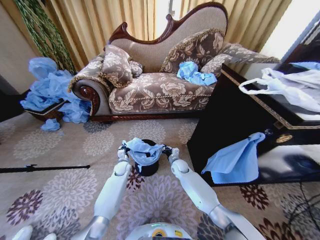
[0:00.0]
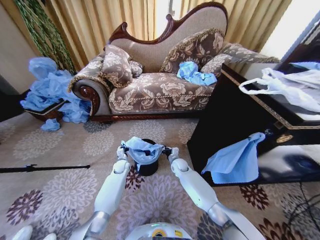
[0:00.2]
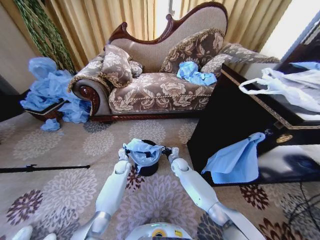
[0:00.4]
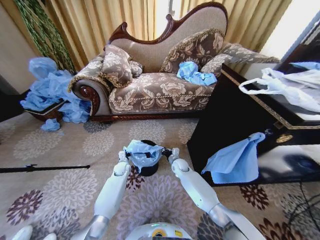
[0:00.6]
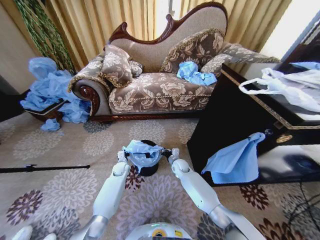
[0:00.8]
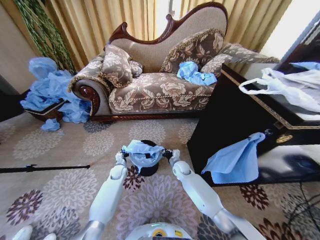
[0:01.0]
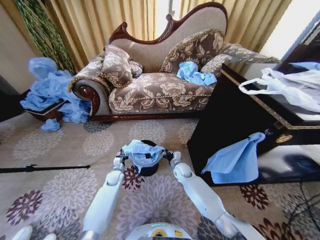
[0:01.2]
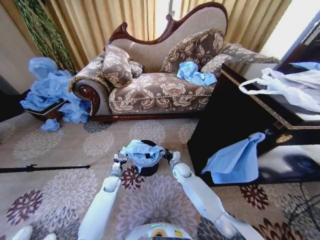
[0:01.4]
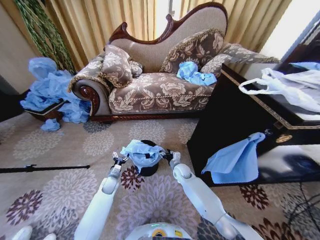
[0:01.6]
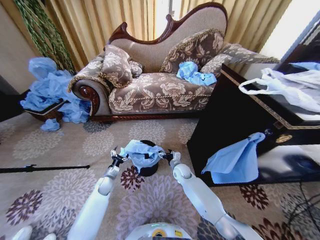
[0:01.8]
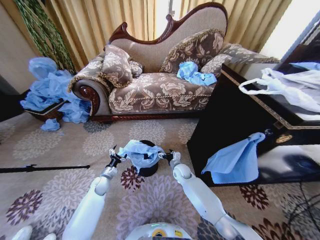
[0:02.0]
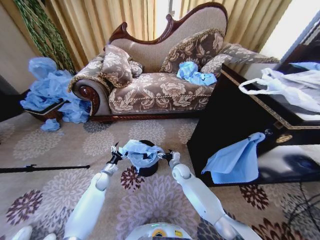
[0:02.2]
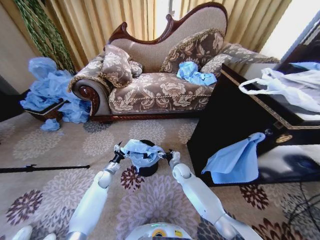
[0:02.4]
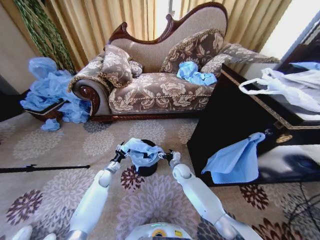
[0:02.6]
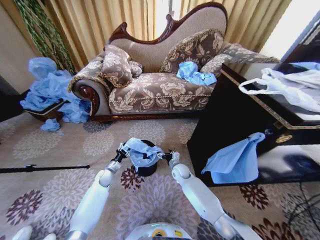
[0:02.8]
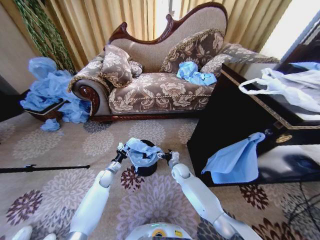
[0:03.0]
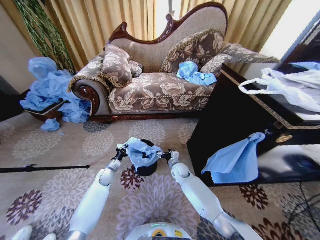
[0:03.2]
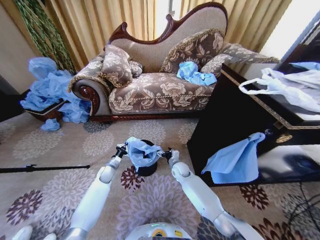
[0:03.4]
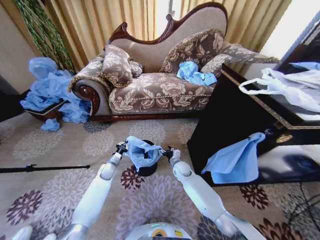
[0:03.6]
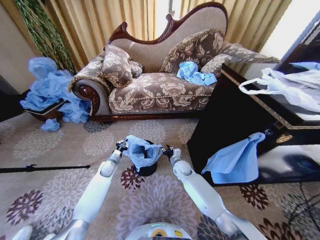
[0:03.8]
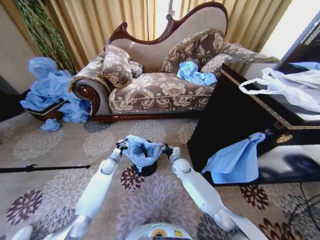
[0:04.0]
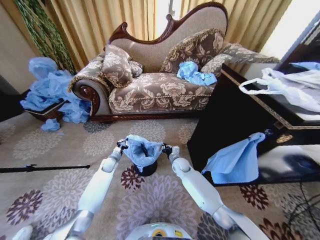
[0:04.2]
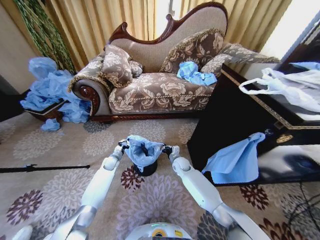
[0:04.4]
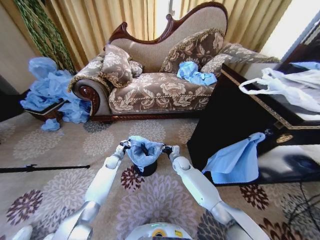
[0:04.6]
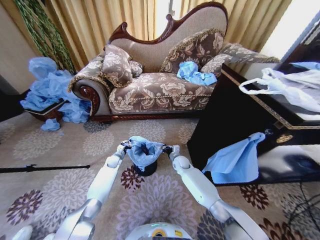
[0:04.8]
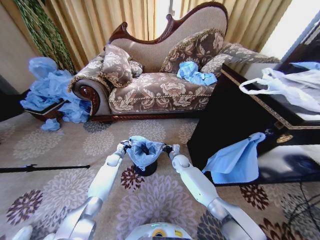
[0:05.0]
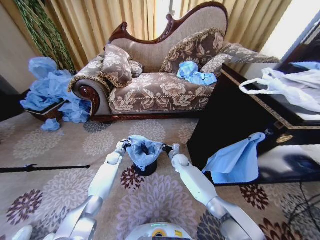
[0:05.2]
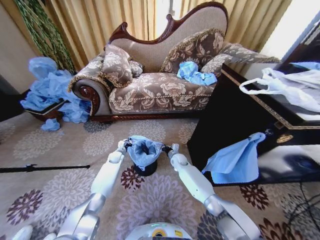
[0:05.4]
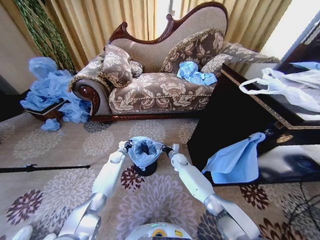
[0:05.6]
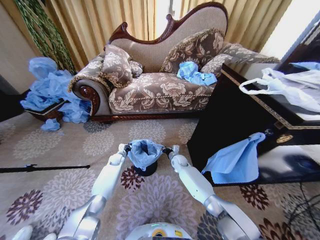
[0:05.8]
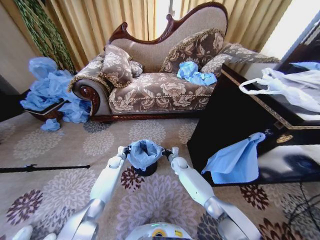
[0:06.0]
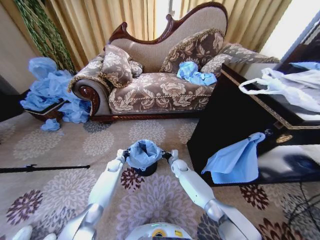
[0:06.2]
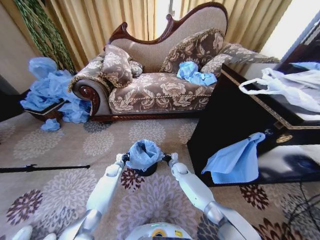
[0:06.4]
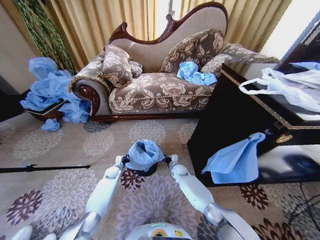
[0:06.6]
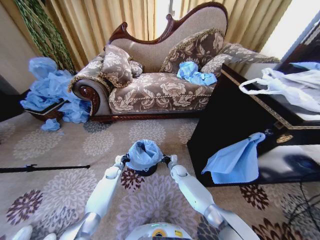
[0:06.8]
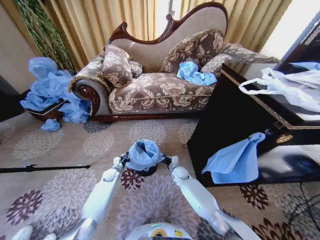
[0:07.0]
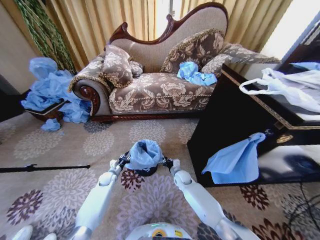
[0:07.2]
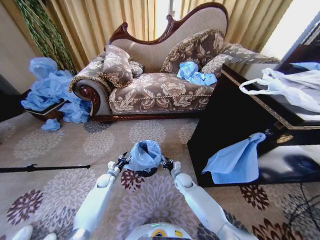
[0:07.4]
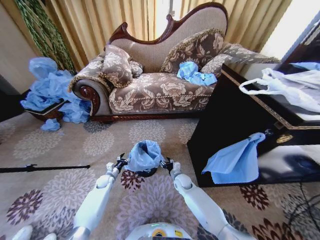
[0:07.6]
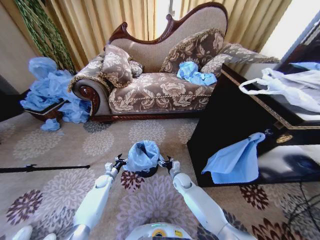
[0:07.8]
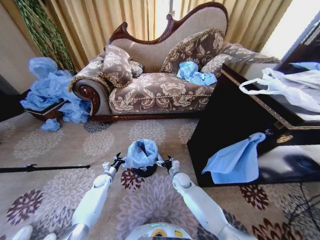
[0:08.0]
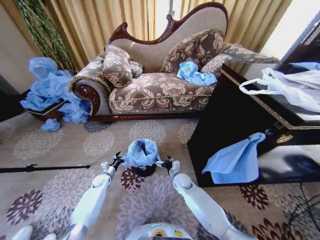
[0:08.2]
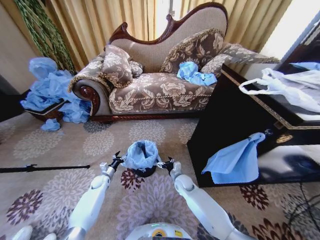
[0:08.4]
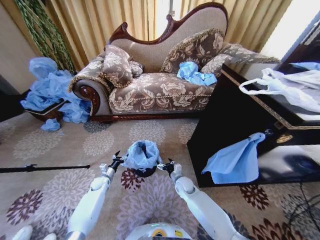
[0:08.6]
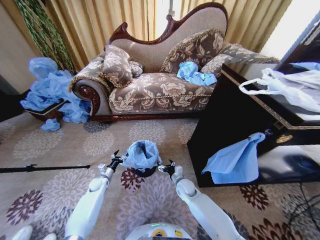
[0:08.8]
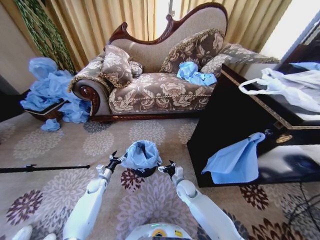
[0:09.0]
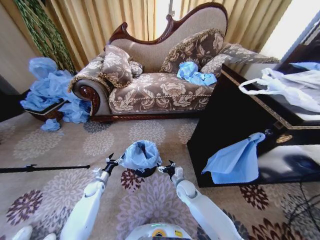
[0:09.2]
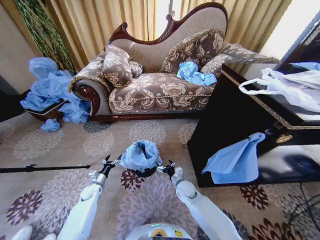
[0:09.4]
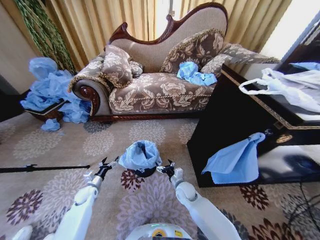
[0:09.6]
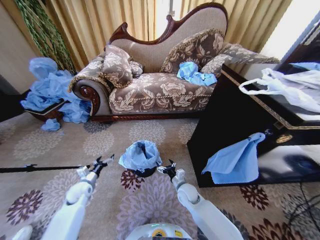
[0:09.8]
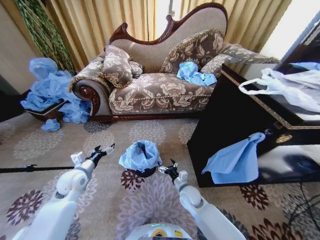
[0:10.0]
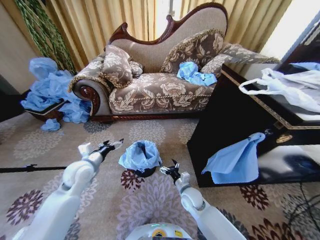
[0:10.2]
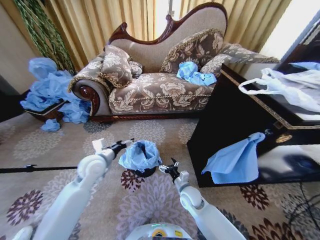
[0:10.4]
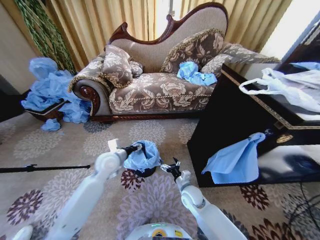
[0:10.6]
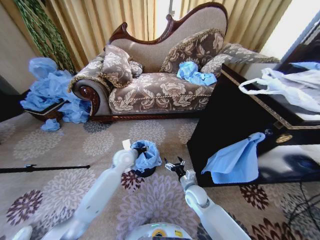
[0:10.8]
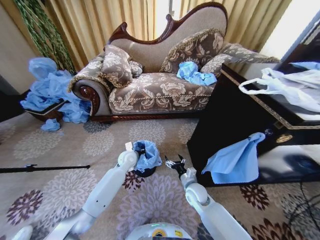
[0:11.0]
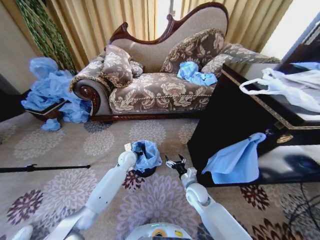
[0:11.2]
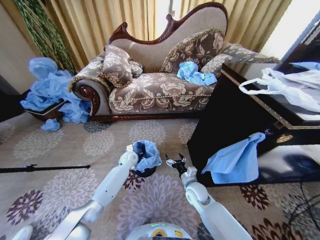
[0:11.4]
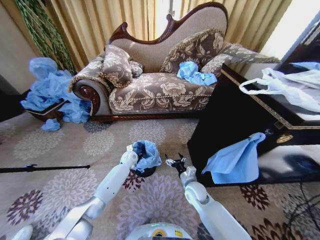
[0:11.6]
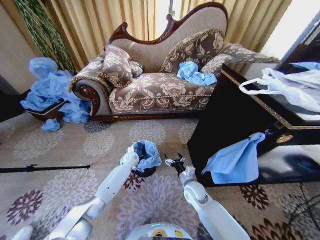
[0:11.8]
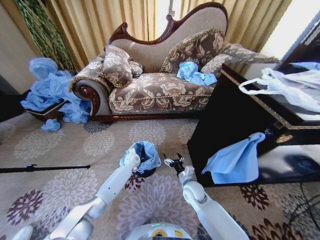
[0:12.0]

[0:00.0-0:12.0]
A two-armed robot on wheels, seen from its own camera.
Task of the whole recording: Place a garbage bag over the trash bin.
0:00.0 to 0:01.6: The right gripper opens up; the left gripper goes approximately 10 cm backward and to the left, and opens its fingers.
0:01.6 to 0:03.0: The left gripper closes up.
0:03.0 to 0:04.4: The right gripper closes up. The left gripper heads forward, covering some 10 cm.
0:06.0 to 0:07.6: The right gripper moves backward, about 10 cm, and opens its fingers. The left gripper heads backward and downward, covering roughly 10 cm, and opens up.
0:07.6 to 0:09.0: The right gripper opens up.
0:09.0 to 0:10.4: The right gripper moves backward, some 5 cm. The left gripper moves upward, some 30 cm.
0:10.4 to 0:12.0: The left gripper heads downward, forward and to the right, covering approximately 25 cm, and closes up.

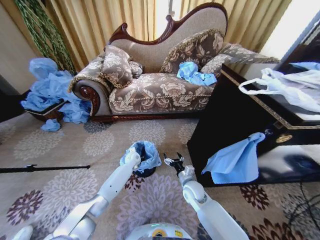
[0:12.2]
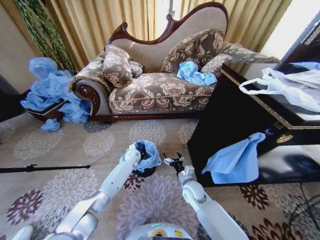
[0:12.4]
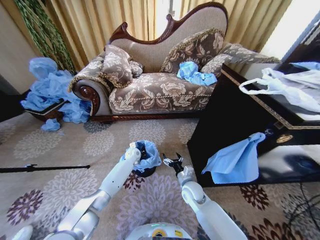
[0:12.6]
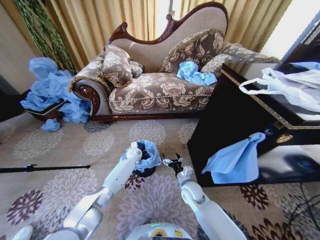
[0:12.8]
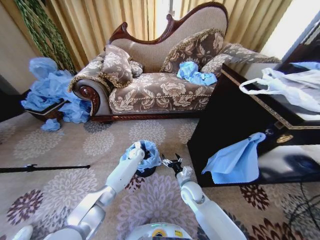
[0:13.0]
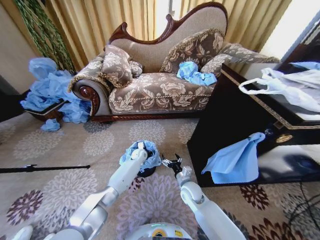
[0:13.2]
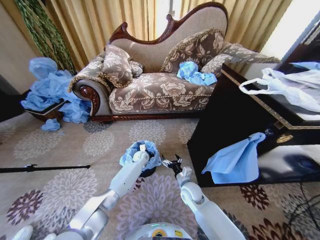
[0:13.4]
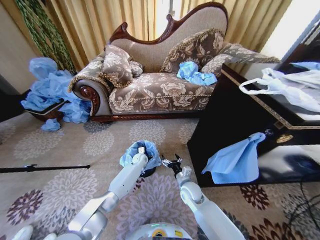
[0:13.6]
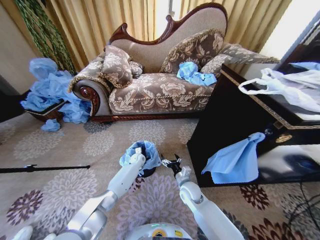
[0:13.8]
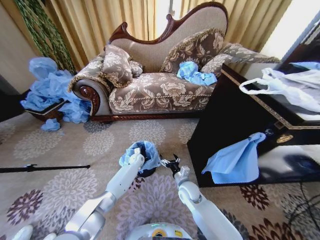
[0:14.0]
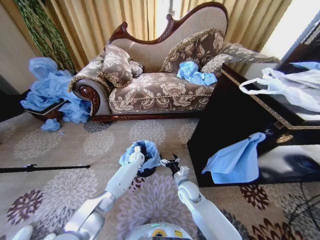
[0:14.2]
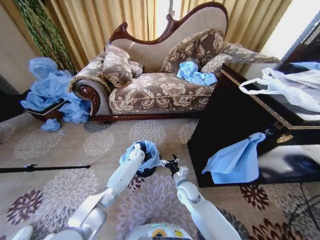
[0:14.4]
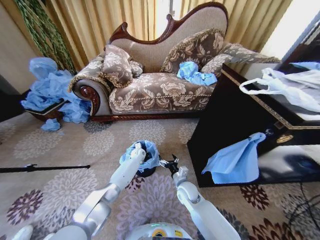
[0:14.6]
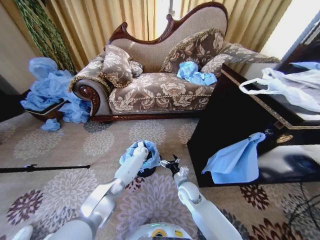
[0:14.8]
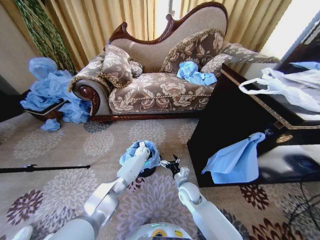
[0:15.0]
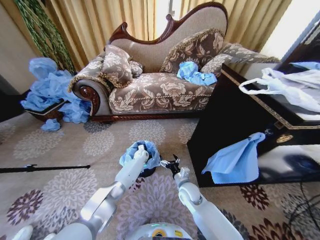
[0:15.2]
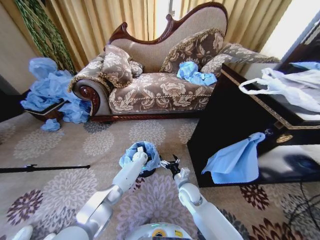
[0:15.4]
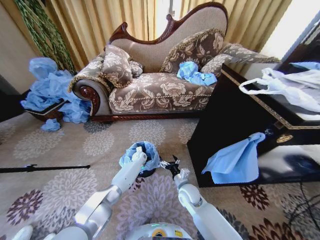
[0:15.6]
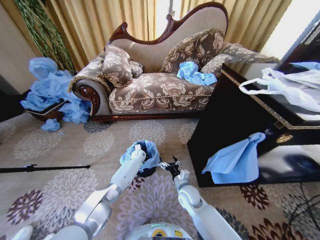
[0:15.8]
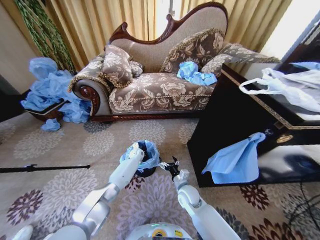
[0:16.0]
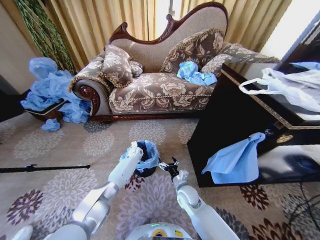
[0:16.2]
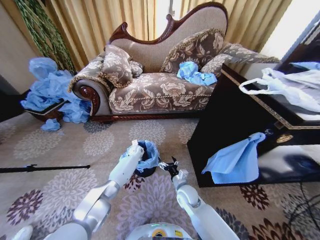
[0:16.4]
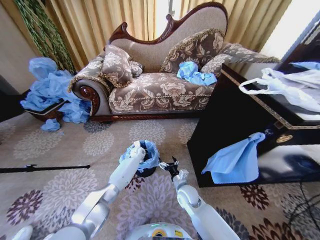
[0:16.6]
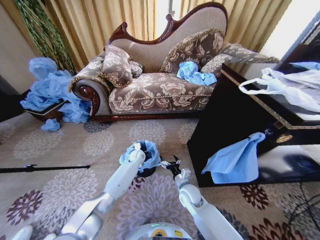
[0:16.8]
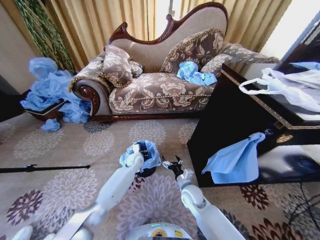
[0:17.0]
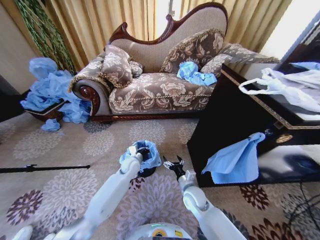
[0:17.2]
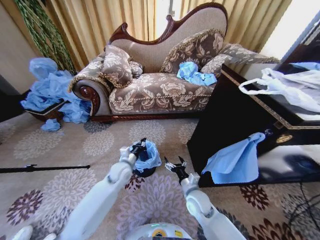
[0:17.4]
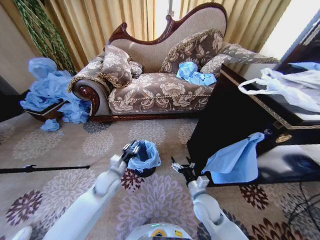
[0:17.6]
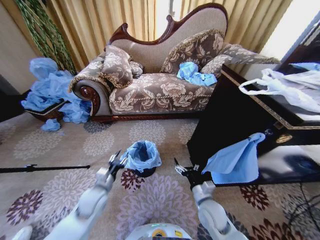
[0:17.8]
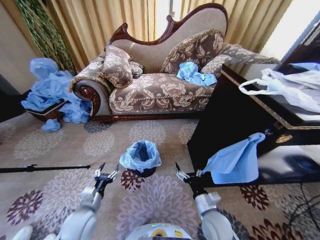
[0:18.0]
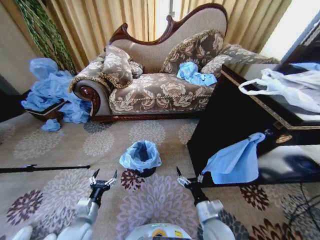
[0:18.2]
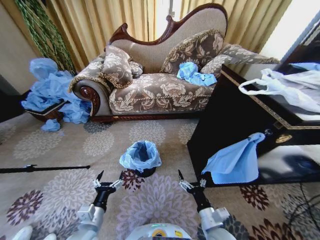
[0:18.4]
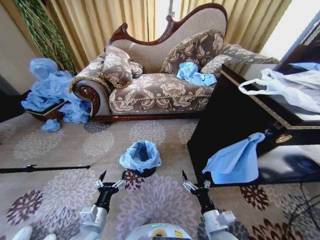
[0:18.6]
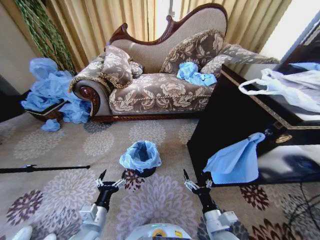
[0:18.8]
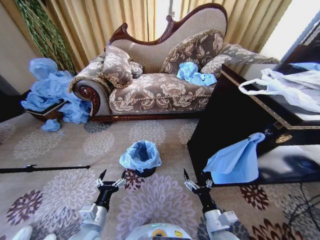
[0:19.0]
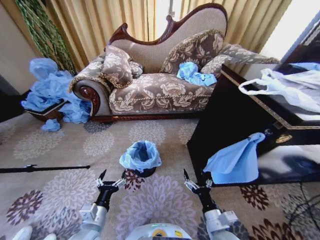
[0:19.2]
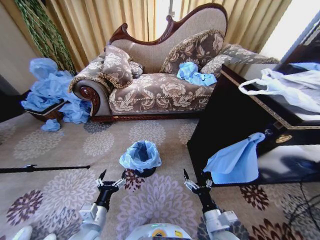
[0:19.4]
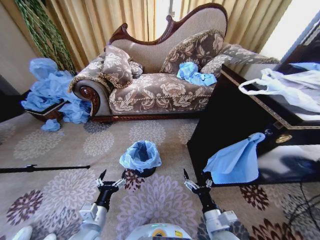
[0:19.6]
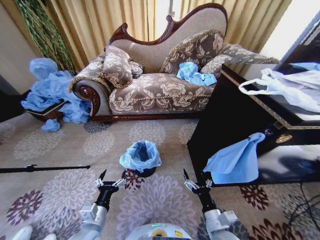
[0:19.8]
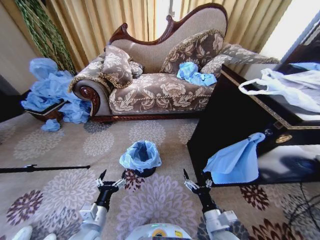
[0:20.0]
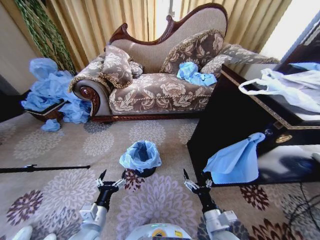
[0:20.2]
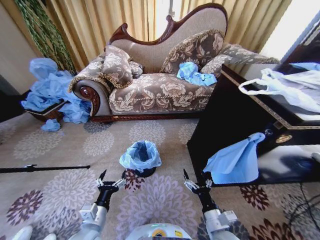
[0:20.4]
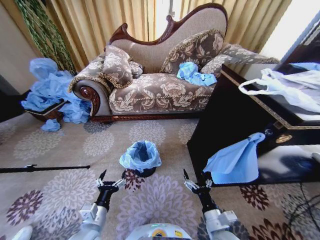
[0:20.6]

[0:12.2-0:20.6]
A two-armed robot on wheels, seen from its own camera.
Task of the whole recording: Place a garbage bag over the trash bin.
0:12.2 to 0:13.6: There are only small adjustments of the grippers.
0:13.6 to 0:15.0: The left gripper heads forward, covering roughly 5 cm.
0:15.0 to 0:16.4: The grippers make only small movements.
0:16.4 to 0:17.8: The right gripper travels backward, to the right and upward by roughly 10 cm, while the left gripper moves backward, approximately 30 cm, and opens up.
0:17.8 to 0:19.2: The grippers both shift backward by roughly 10 cm. The left gripper opens its fingers.
0:19.2 to 0:20.6: The two grippers keep their place.
